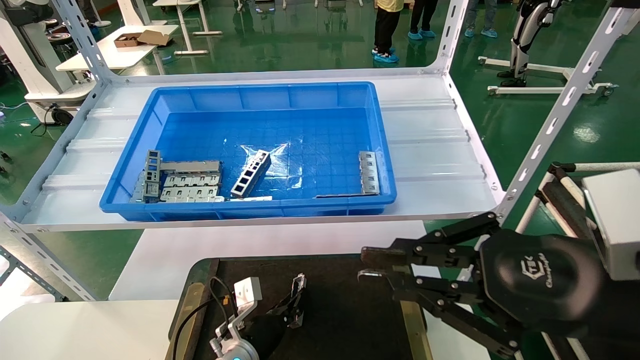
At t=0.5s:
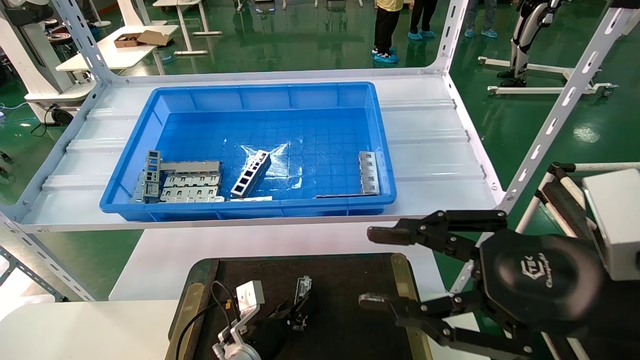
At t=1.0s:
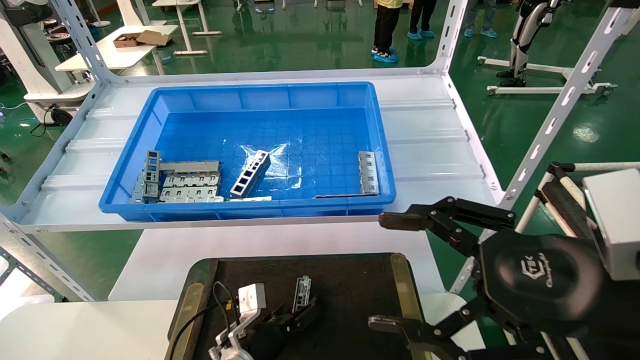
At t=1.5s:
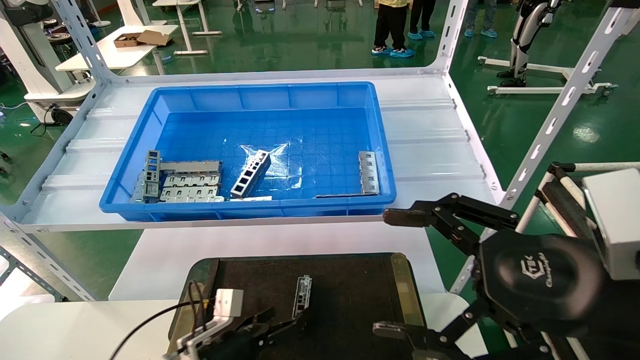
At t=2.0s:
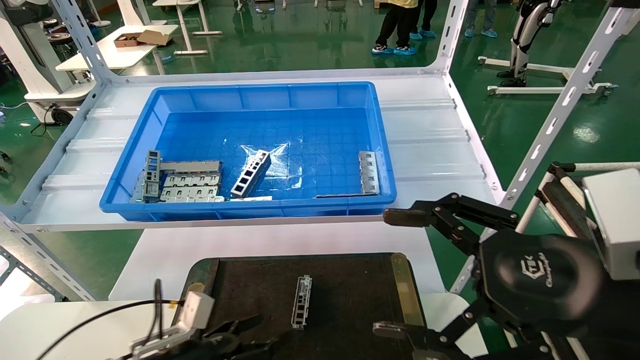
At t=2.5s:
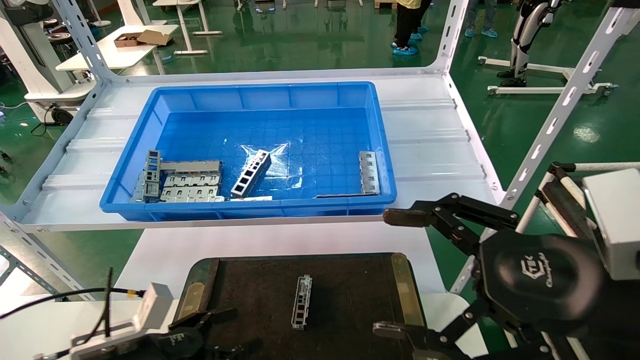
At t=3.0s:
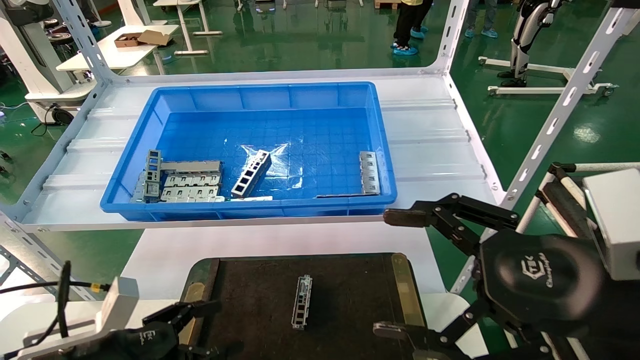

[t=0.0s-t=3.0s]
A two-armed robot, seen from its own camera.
Task of the whole recording: Grasp the part with one hand and place it on the black container.
t=0.0s to t=1.5s: The left gripper goes approximately 5 cm to the left, and opens its fingers, while the right gripper opens up.
t=1.5s to t=3.0s: The left gripper shifts some 20 cm to the left, upward and backward.

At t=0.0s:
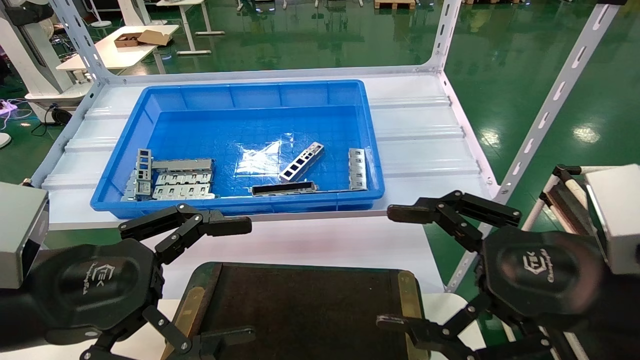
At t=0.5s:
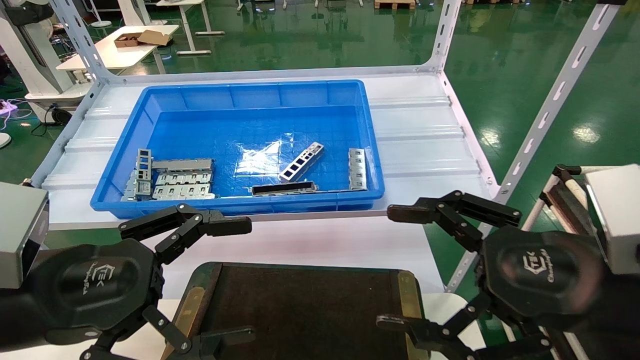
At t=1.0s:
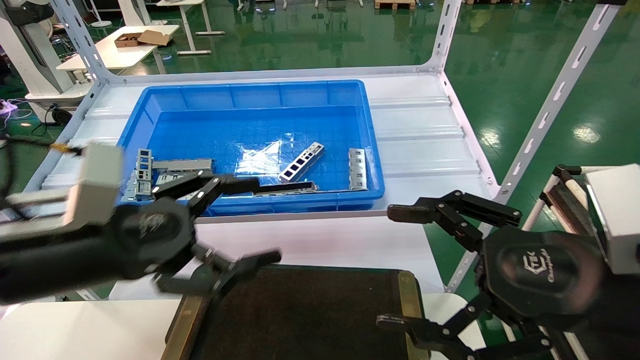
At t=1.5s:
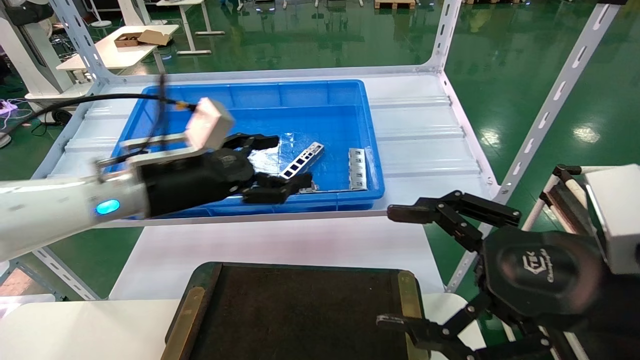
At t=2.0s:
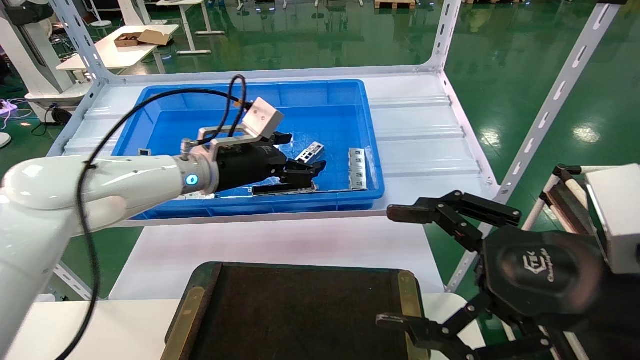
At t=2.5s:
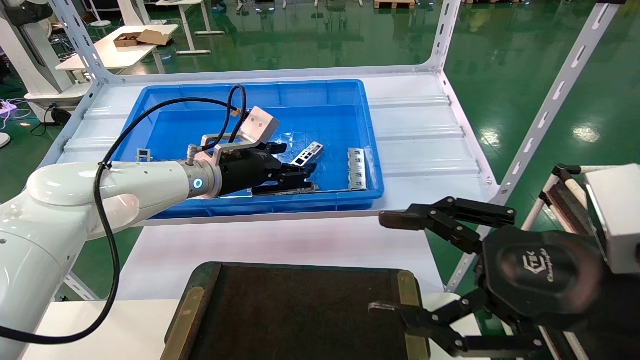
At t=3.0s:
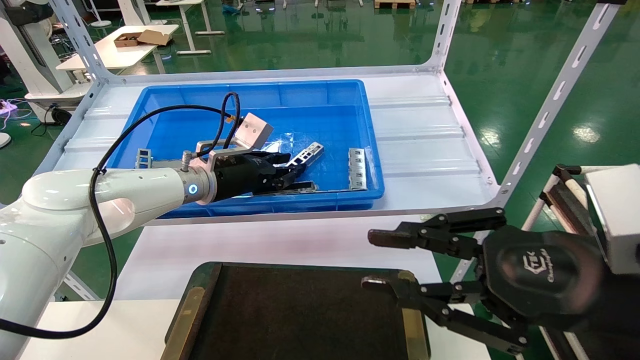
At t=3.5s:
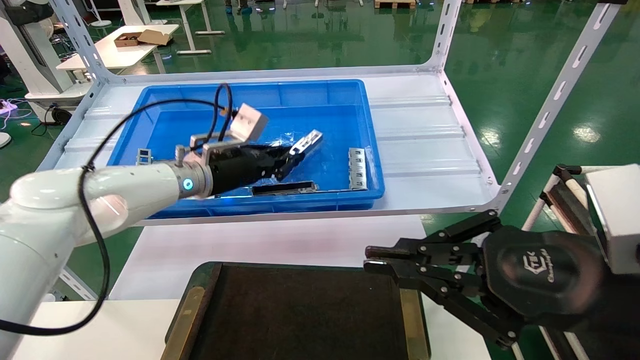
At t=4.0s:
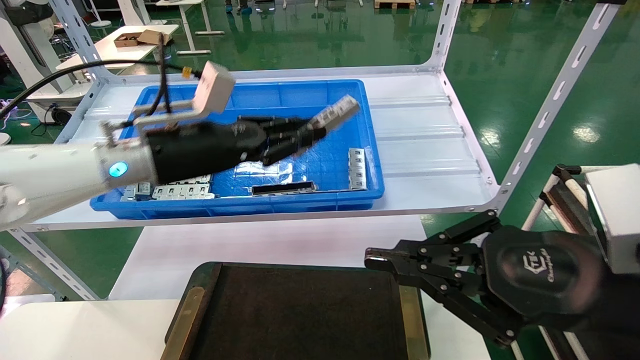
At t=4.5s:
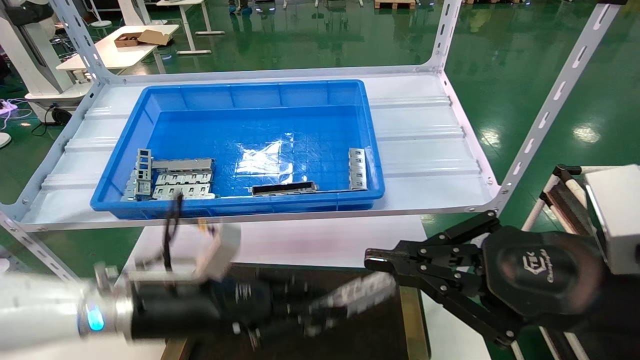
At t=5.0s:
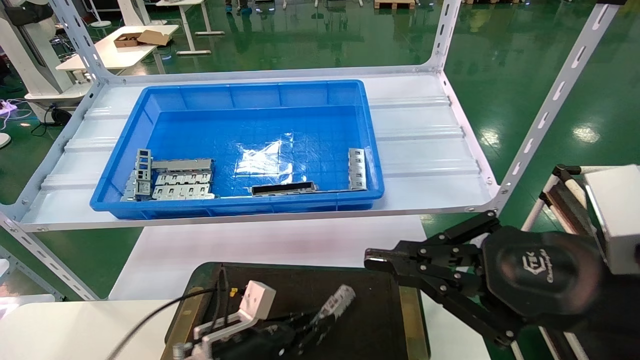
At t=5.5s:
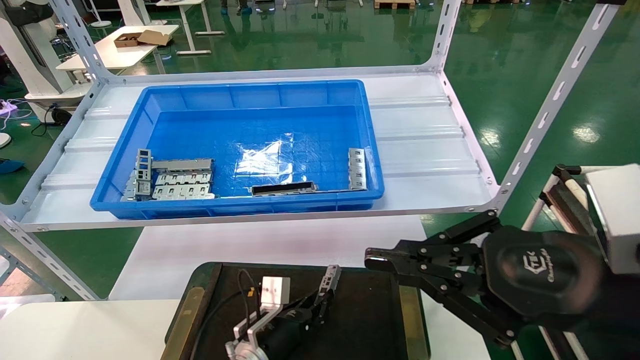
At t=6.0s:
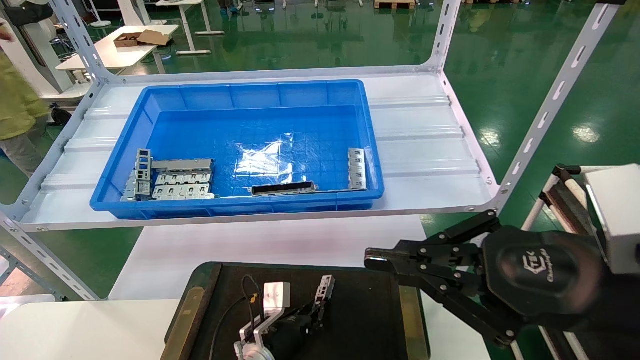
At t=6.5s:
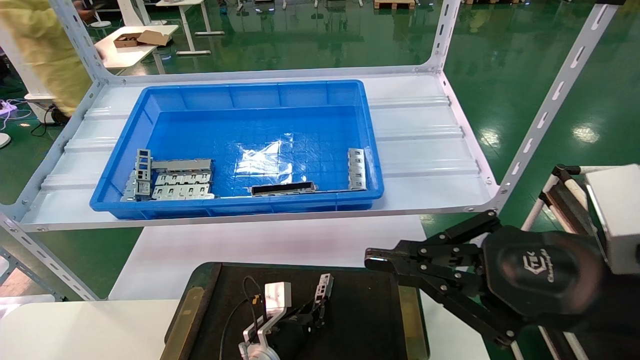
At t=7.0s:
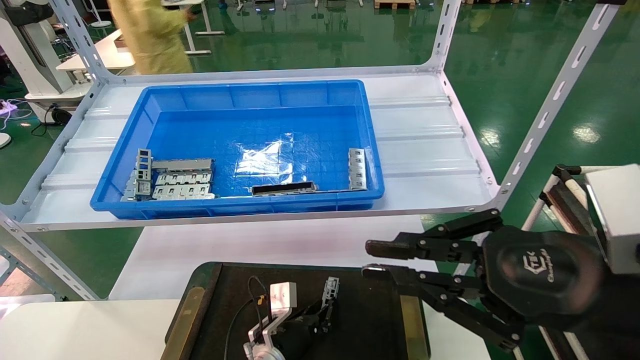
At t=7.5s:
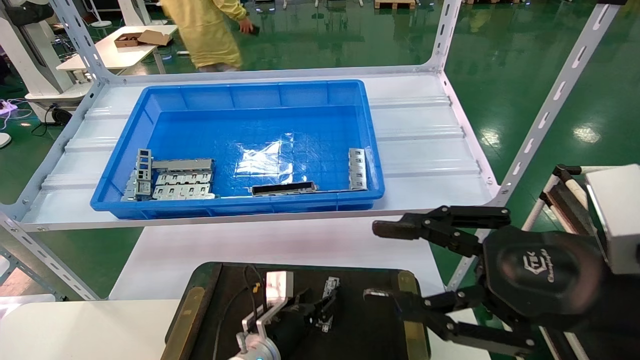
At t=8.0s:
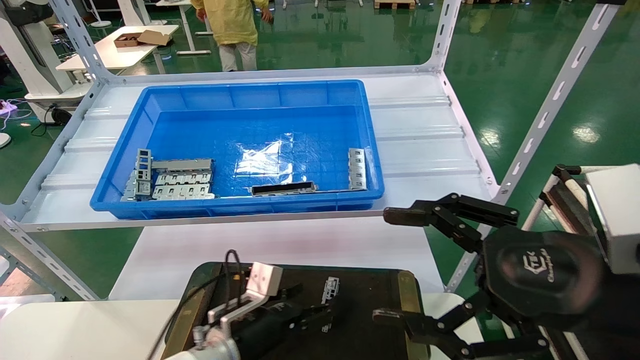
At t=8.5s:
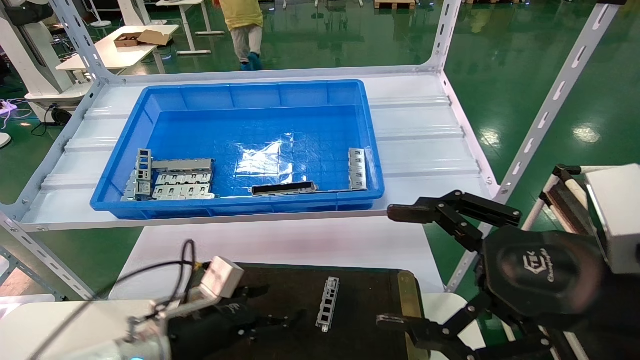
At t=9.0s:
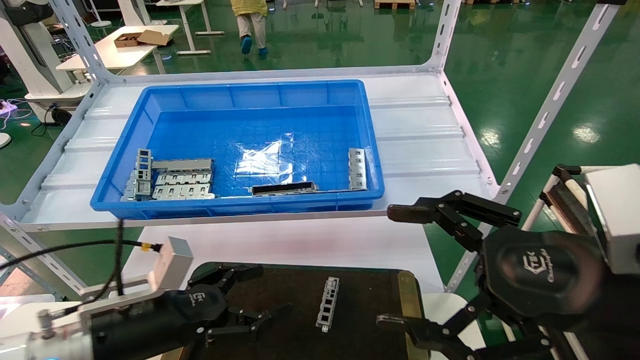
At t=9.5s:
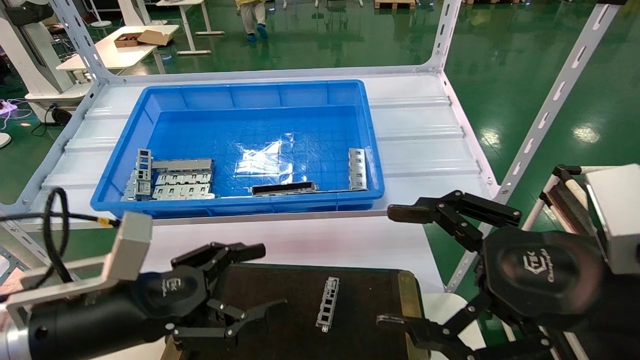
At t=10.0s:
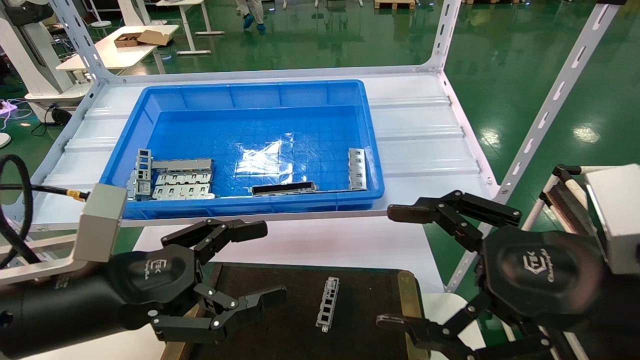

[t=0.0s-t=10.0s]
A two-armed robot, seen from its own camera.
Task of the whole recording: Grasp the part with one hand and place it on the black container.
Step, t=1.0s to t=3.5s: Pick up the front USB bracket from the feeding area.
Step, t=4.0s to t=7.0s: Place the front USB bracket into the box.
t=0.0s to t=2.0s: The left gripper moves forward, some 25 cm.
t=2.0s to t=4.0s: The left gripper shifts approximately 5 cm backward, and closes its fingers, while the right gripper closes its fingers.
t=4.0s to t=6.0s: The left gripper shifts about 35 cm downward.
t=6.0s to t=8.0s: The left gripper is displaced upward by about 10 cm, and opens its fingers; the right gripper opens its fingers.
t=8.0s to t=10.0s: The left gripper travels upward, backward and to the left by approximately 25 cm.
